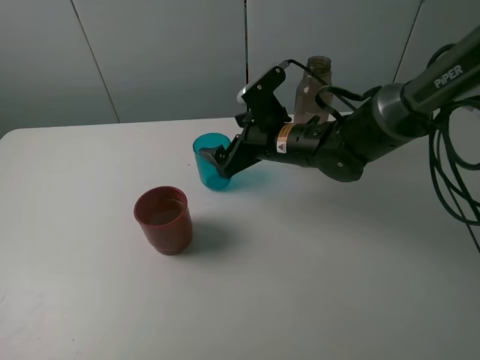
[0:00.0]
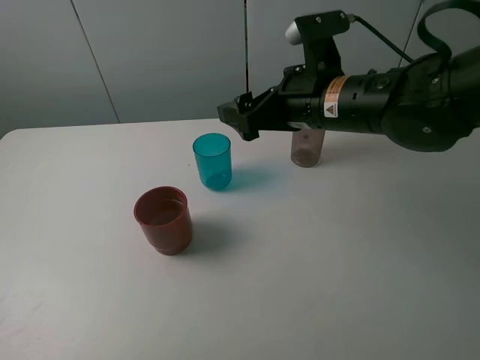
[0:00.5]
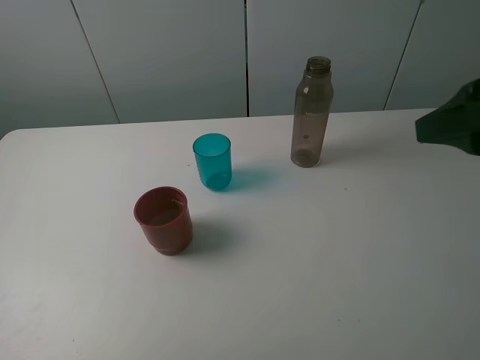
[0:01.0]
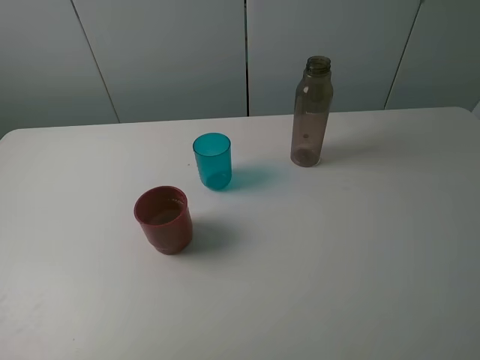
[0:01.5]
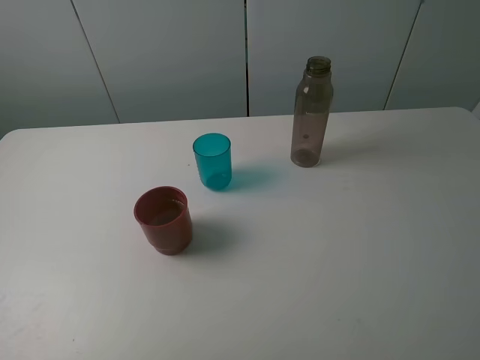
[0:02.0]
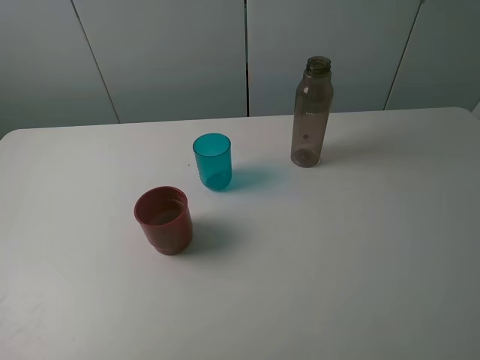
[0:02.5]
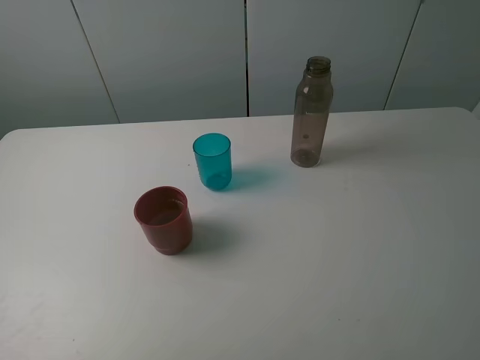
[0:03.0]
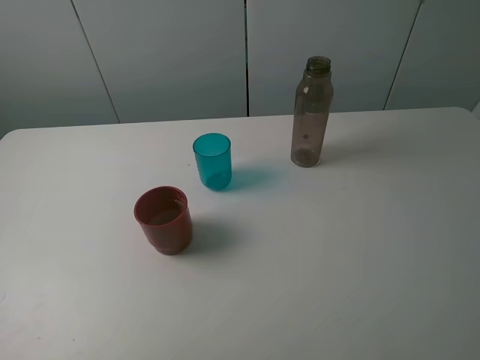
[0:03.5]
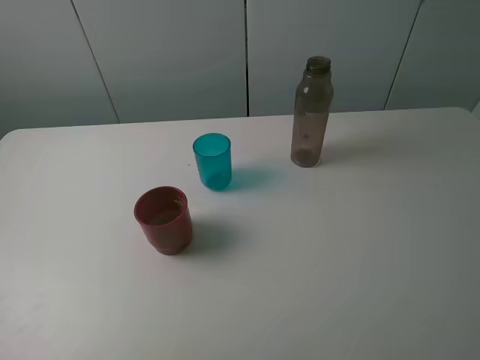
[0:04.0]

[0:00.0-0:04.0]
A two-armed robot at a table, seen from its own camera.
Task of the whole recording: pick up the bottle and pour water into the cup, then pick up the cup containing water and pour it into another cup.
0:00.0 to 0:02.0: The right gripper shifts about 40 cm backward, to the right and upward.
